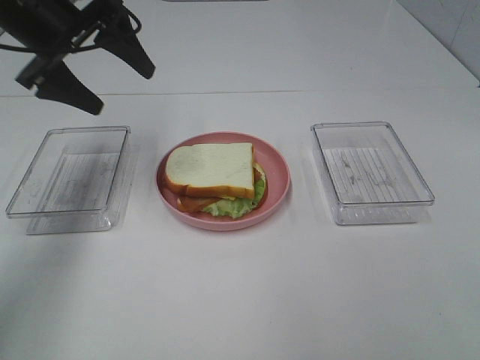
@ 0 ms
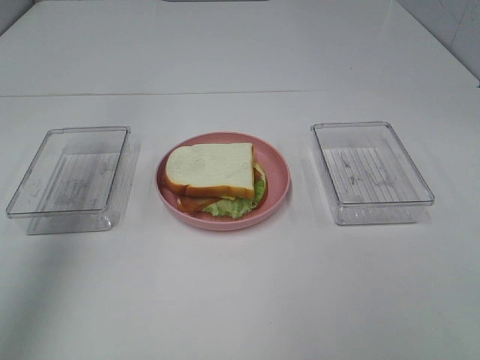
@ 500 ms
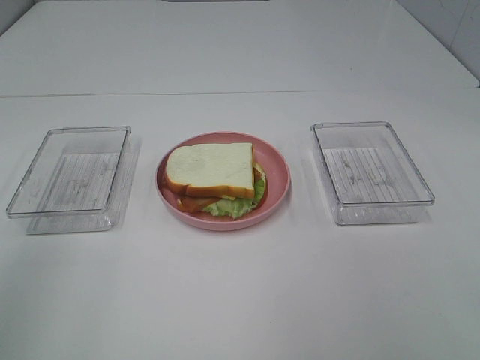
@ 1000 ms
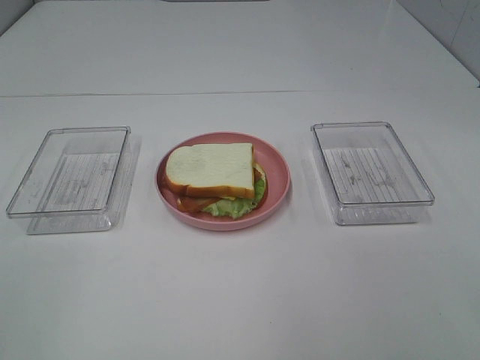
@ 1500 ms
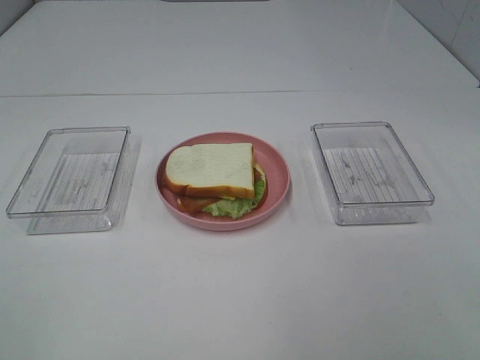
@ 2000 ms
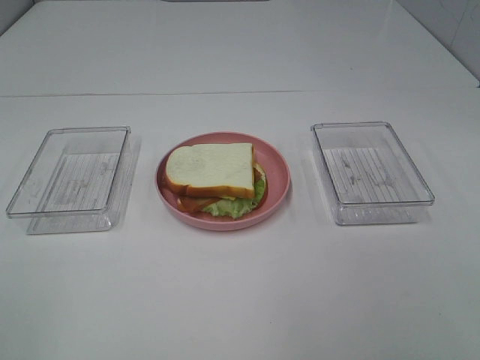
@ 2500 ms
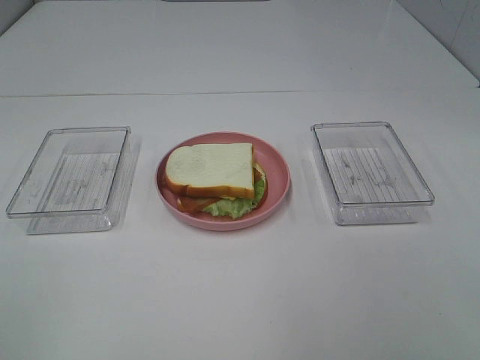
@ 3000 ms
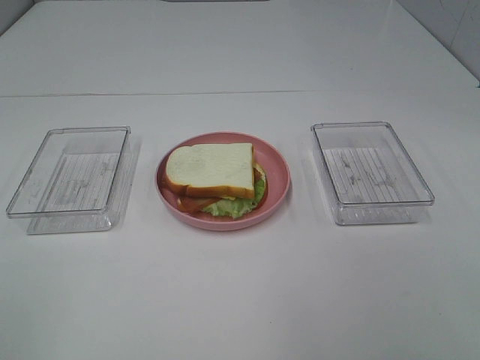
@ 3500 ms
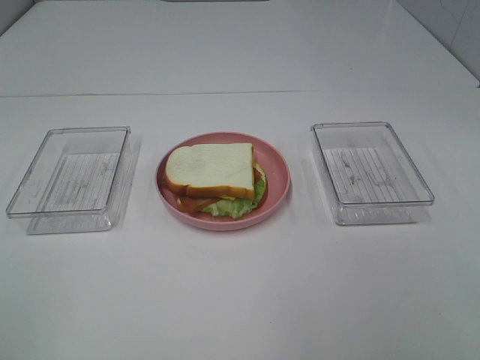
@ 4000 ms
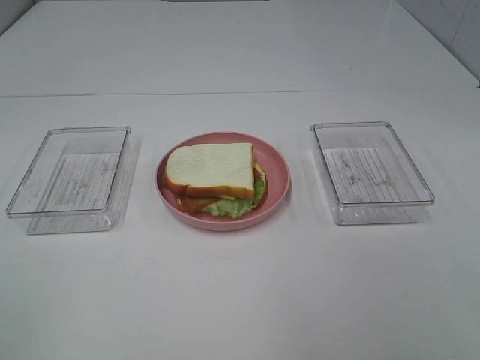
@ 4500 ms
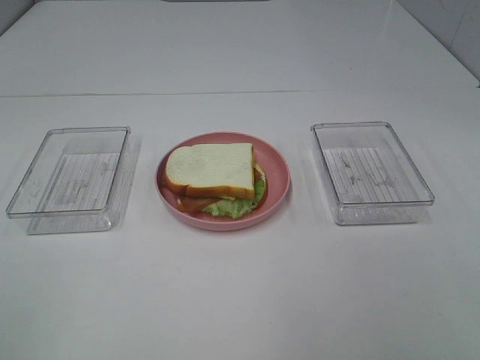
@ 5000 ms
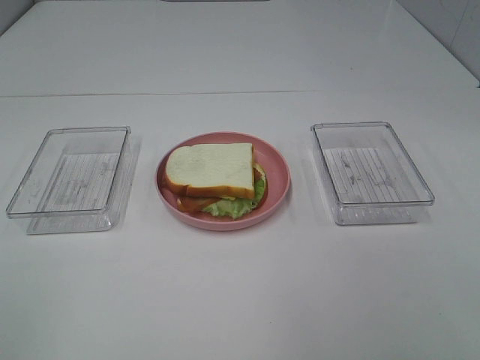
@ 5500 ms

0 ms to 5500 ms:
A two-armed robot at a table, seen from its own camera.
Task of the whole recording: Make sandwiches.
0 ms to 2000 ms: The left gripper heads backward, covering some 40 cm.
3500 ms to 5500 ms: Neither gripper changes place.

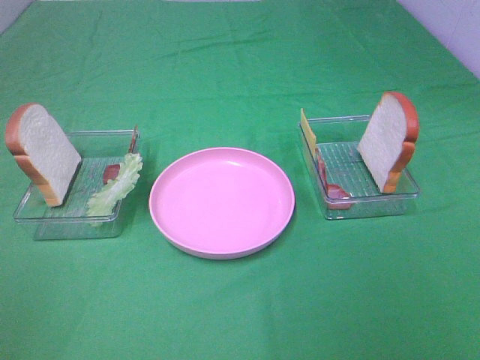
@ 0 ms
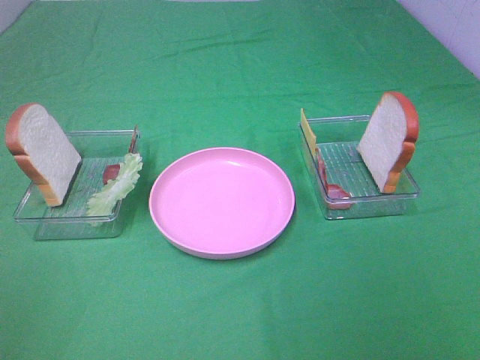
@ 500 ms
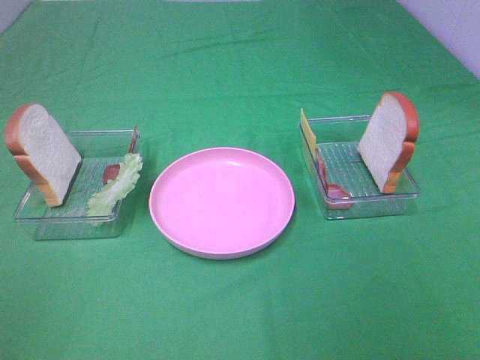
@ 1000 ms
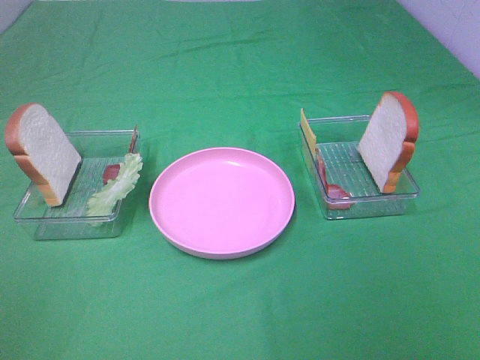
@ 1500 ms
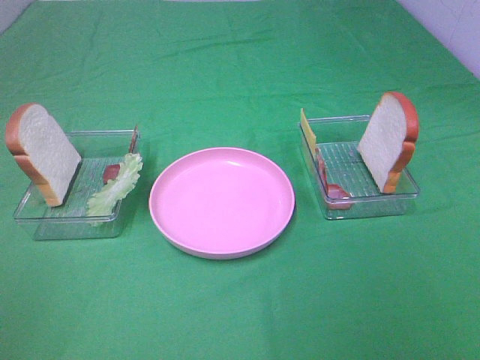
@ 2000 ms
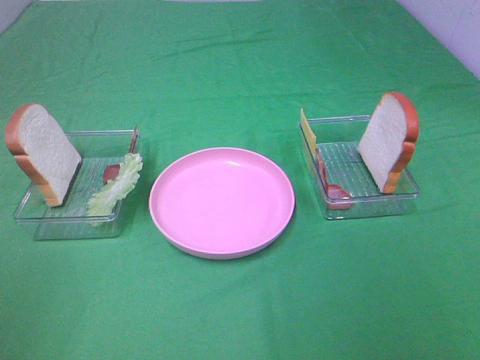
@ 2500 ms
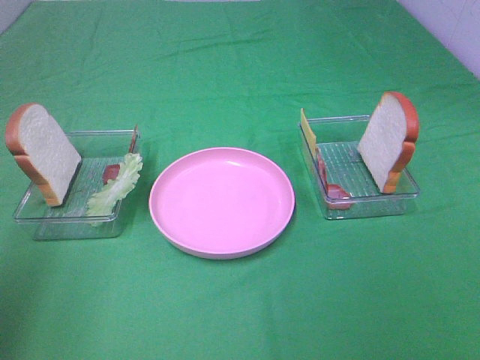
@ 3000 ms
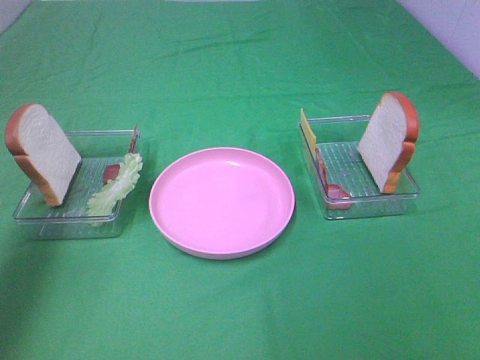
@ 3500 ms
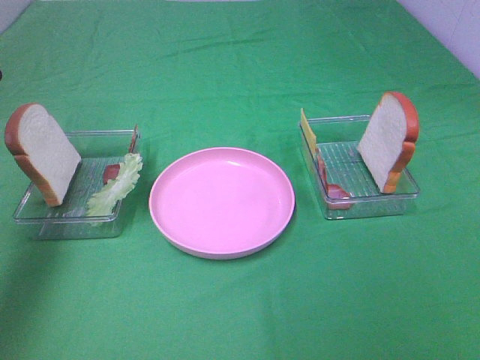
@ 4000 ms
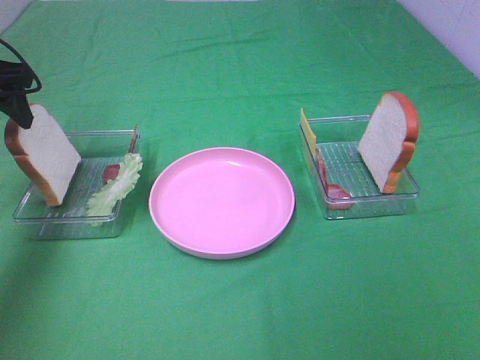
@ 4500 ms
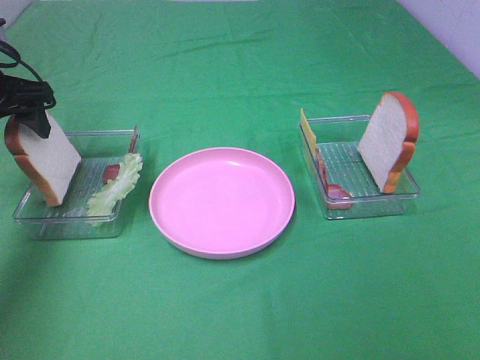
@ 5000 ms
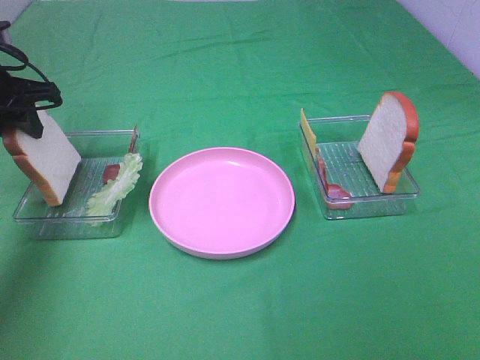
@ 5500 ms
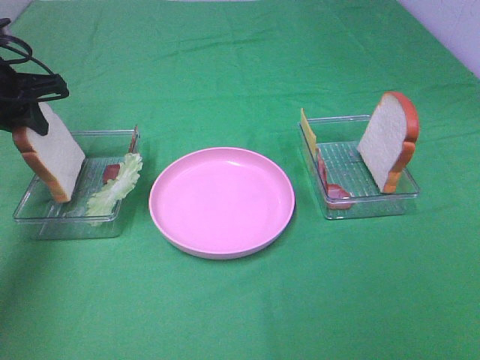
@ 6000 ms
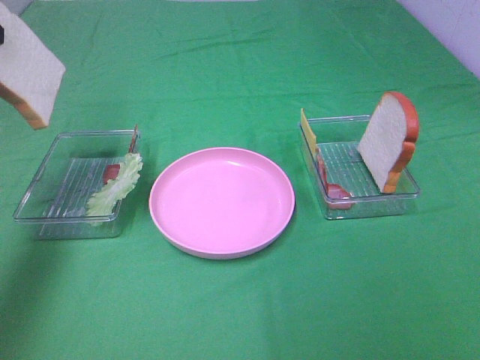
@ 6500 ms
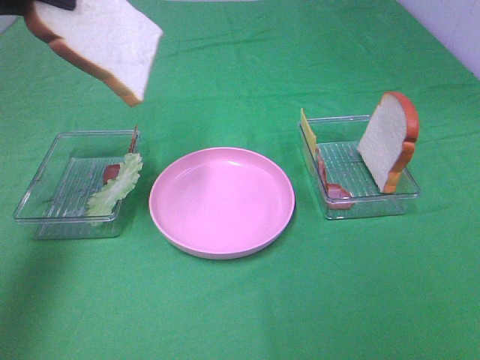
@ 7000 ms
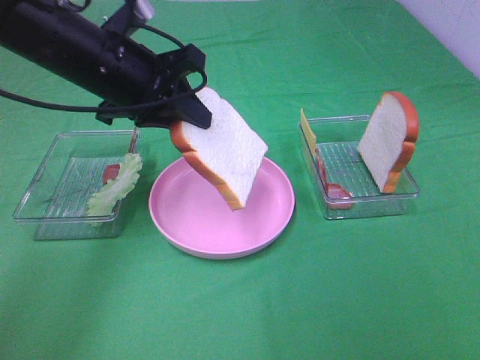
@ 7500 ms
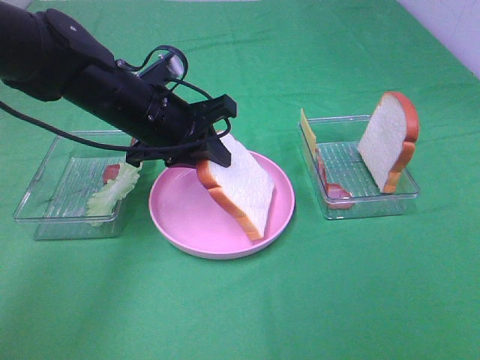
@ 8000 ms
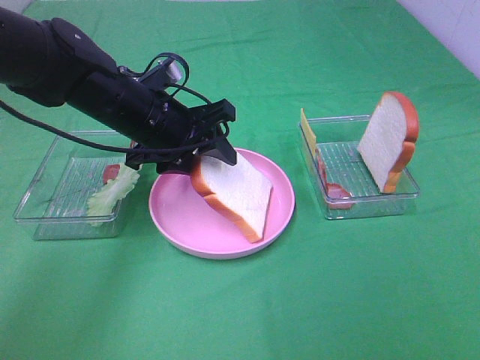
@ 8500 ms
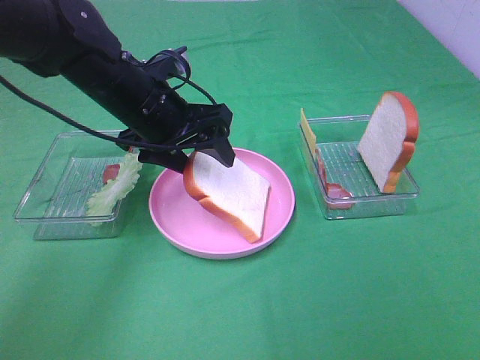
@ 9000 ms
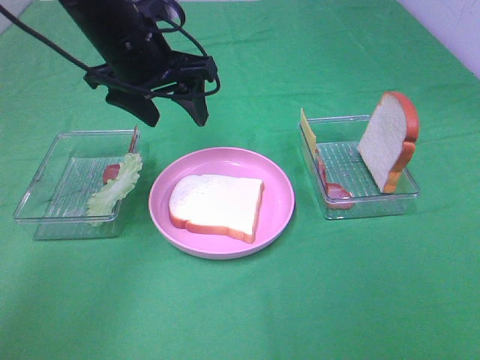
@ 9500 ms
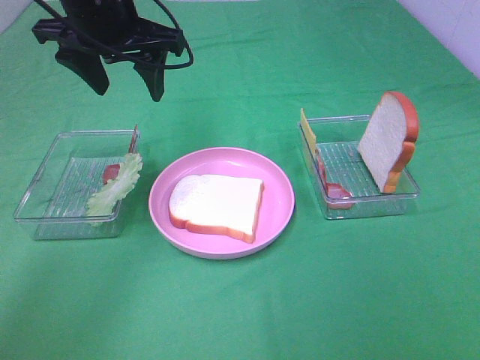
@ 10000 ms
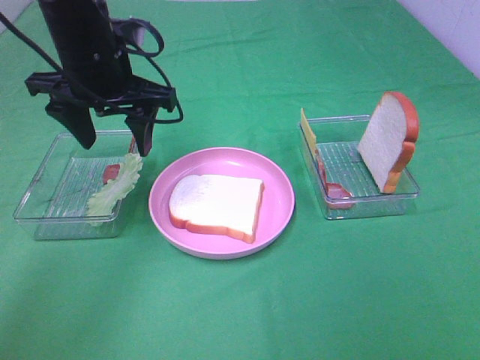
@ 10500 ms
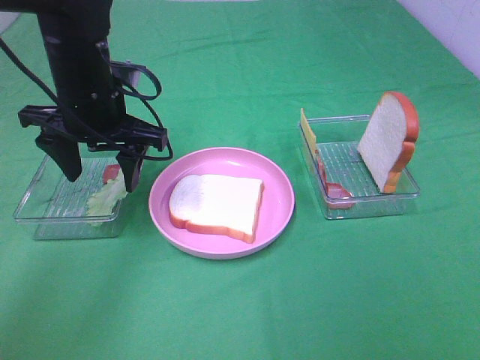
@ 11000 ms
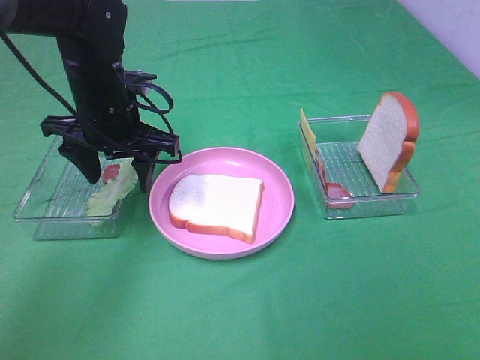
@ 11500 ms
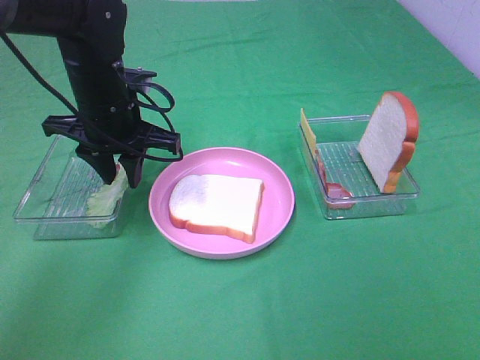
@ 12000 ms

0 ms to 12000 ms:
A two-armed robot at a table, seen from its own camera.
Task of the whole recording: Make sandwiches.
Step, 0 ms to 5500 ms: Left hand:grab the bread slice.
Step, 6000 ms to 9000 ms: Left hand:place the bread slice on the plate.
0 ms to 2000 ms: Neither gripper changes place.
2000 ms to 4000 ms: The left gripper shifts approximately 30 cm forward.
4000 ms to 6000 ms: The left gripper shifts approximately 15 cm forward and downward, and closes up.
6000 ms to 8000 ms: The left gripper shifts about 20 cm to the right.
8000 ms to 10000 ms: The left gripper heads upward, covering approximately 10 cm, and opens its fingers.
10000 ms to 12000 ms: The left gripper goes about 10 cm downward, and closes its fingers.

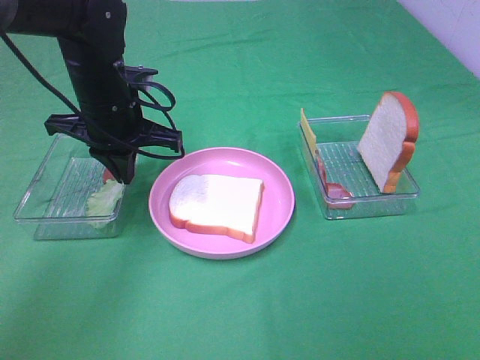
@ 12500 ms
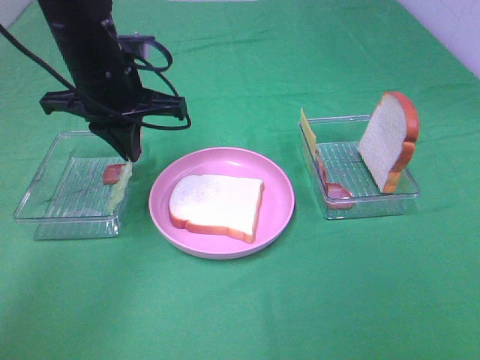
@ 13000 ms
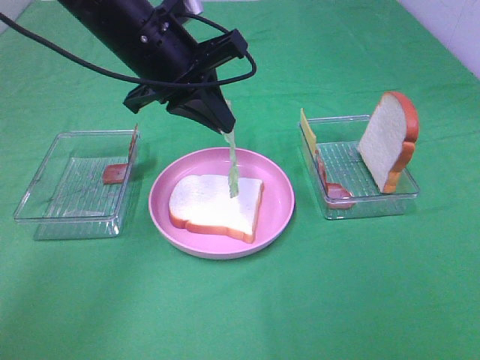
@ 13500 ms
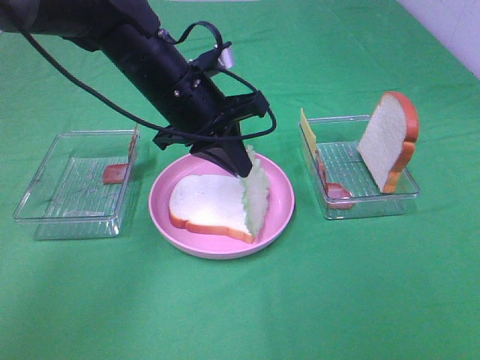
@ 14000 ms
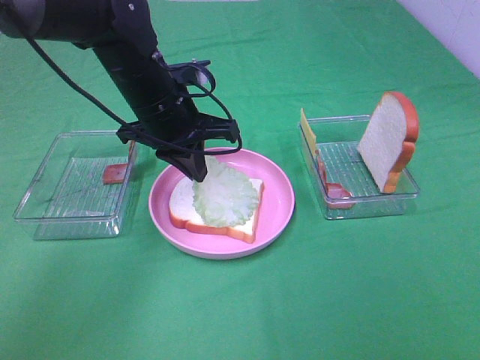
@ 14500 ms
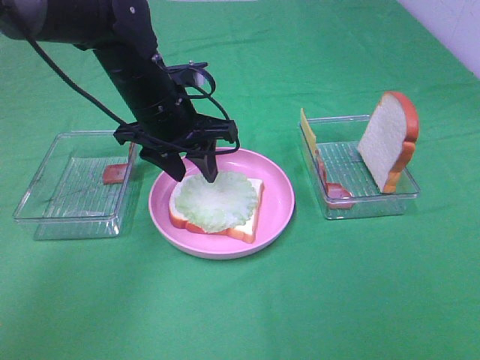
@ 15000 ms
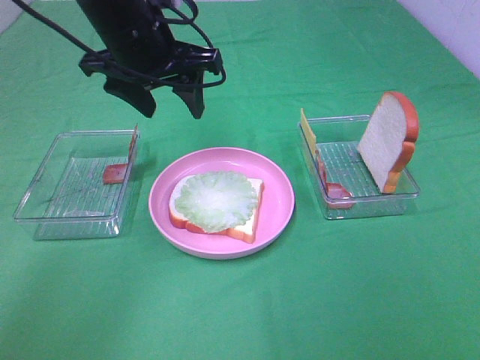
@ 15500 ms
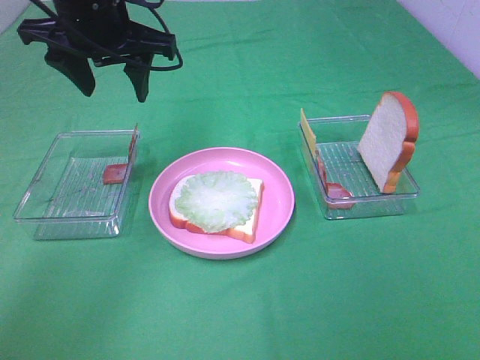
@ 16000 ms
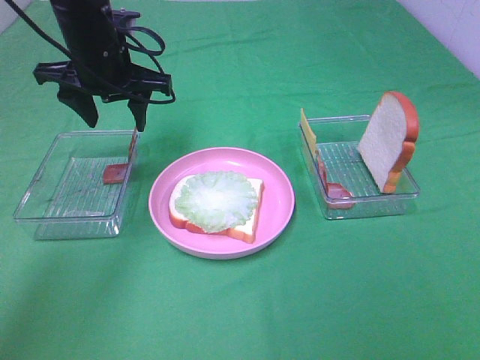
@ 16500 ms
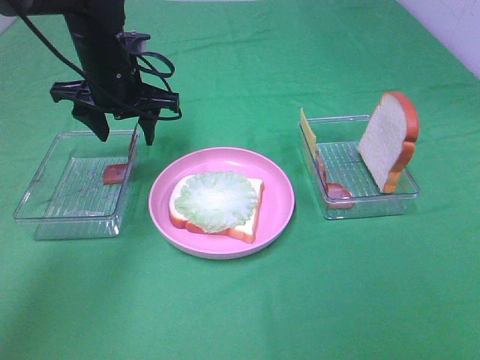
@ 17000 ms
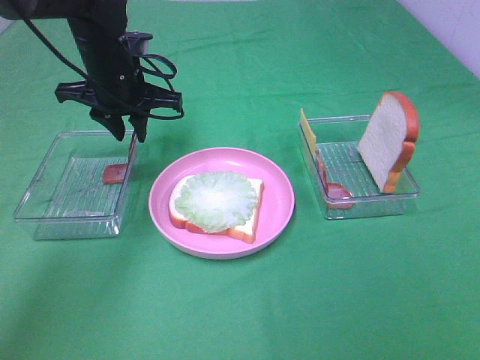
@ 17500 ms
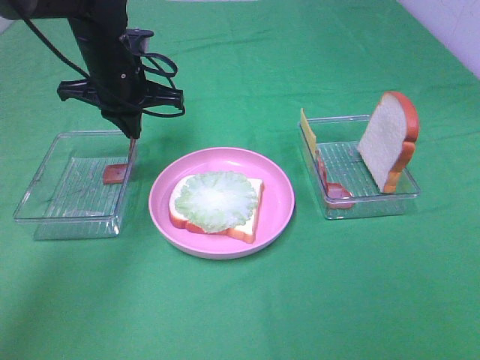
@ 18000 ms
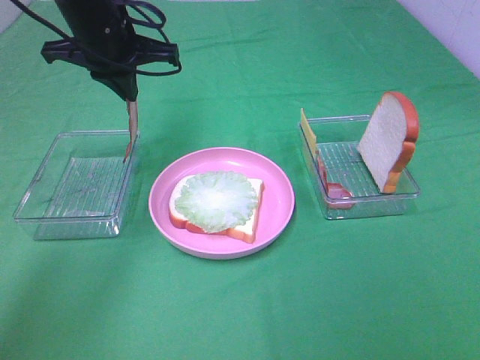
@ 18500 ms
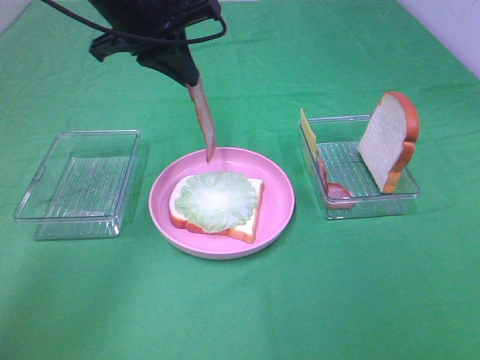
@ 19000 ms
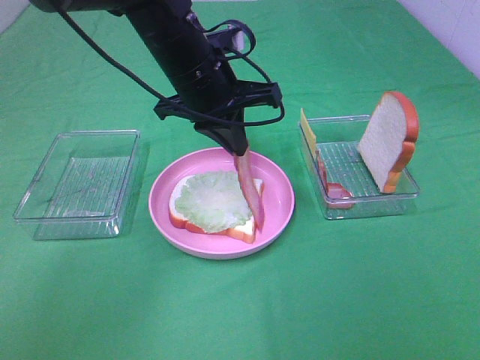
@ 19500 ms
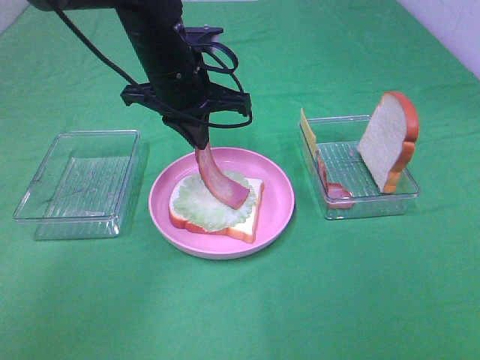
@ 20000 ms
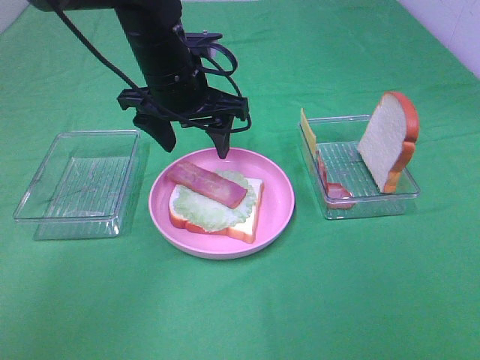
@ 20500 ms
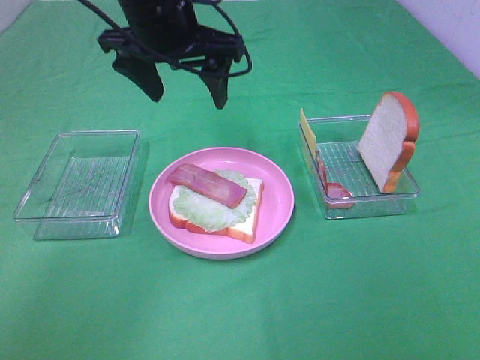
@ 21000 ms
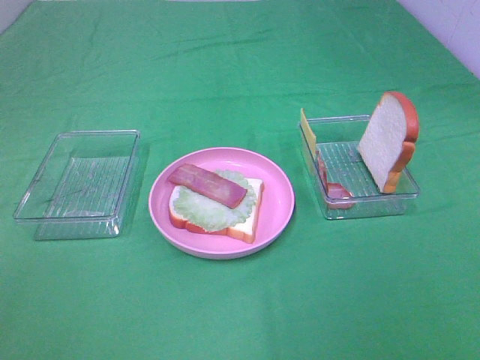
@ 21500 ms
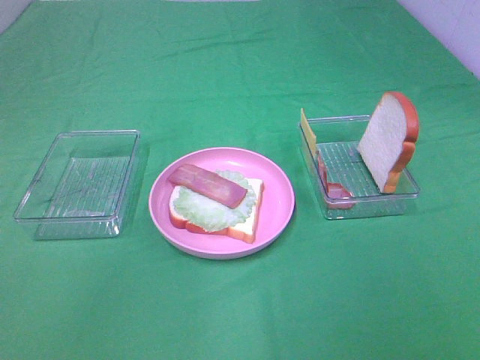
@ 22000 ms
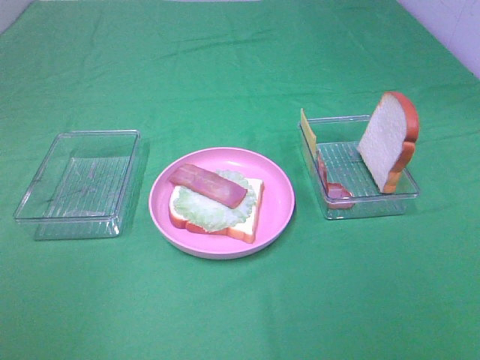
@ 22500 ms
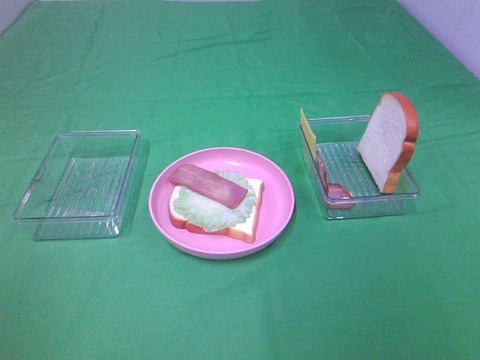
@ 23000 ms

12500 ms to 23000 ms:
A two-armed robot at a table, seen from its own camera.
Task of the whole recording: Make sandwiches.
Step, 13000 ms to 15000 ms: Left hand:place the lettuce slice on the bread slice.
Step, 15500 ms to 18000 ms: Left hand:grab the bacon.
Step, 18500 ms to 20500 ms: Left hand:place bacon on lettuce slice.
12500 ms to 14500 ms: The left gripper moves to the right, about 5 cm.
14500 ms to 16500 ms: The left gripper moves to the left, some 5 cm, and opens.
16500 ms to 19000 ms: The left gripper moves upward, approximately 5 cm, and closes.
19000 ms to 21000 ms: The left gripper goes downward and returns, about 10 cm each way, and opens.
21000 ms to 23000 ms: The left gripper travels backward and to the left by roughly 50 cm.
